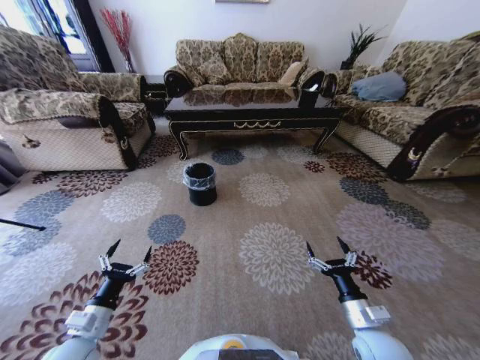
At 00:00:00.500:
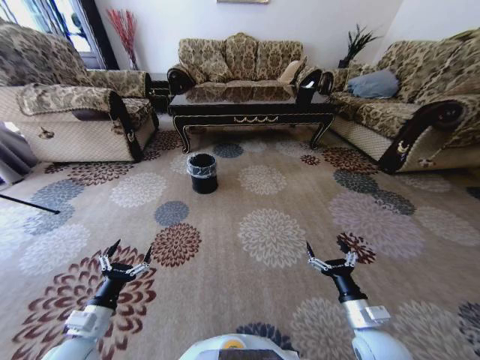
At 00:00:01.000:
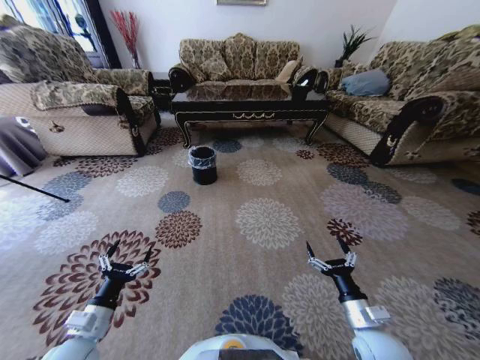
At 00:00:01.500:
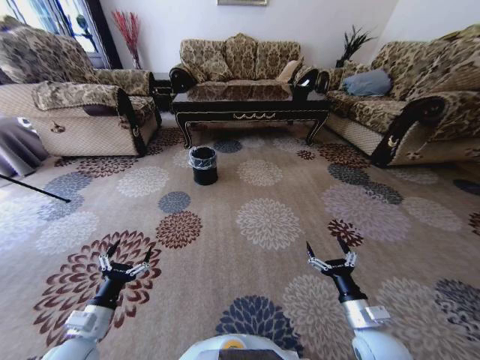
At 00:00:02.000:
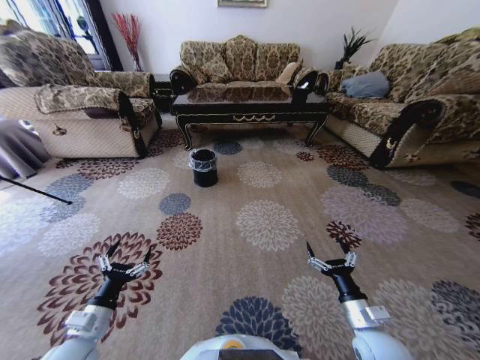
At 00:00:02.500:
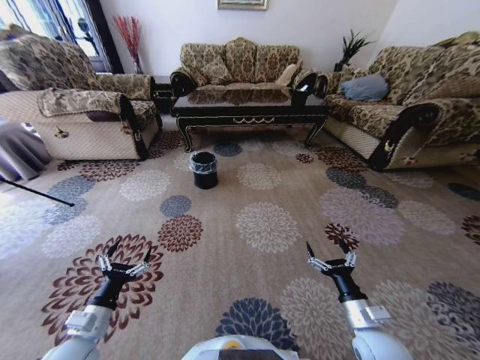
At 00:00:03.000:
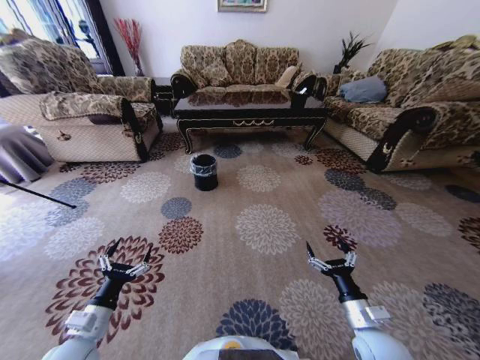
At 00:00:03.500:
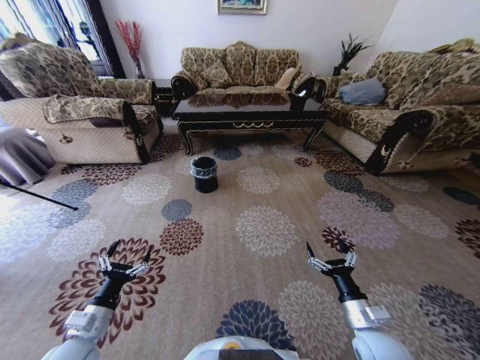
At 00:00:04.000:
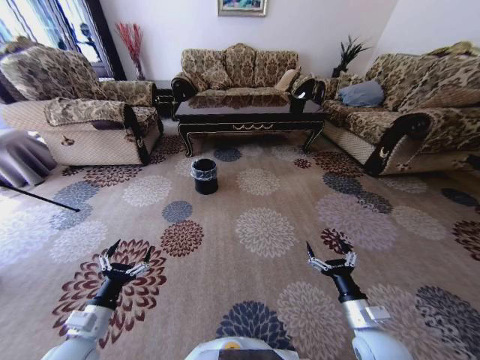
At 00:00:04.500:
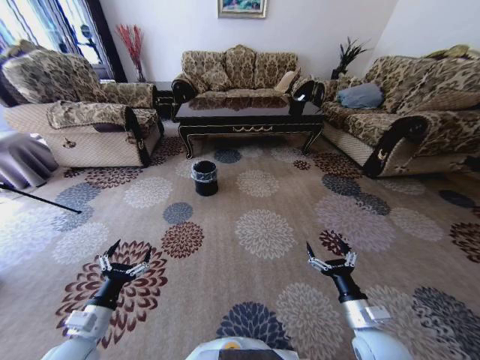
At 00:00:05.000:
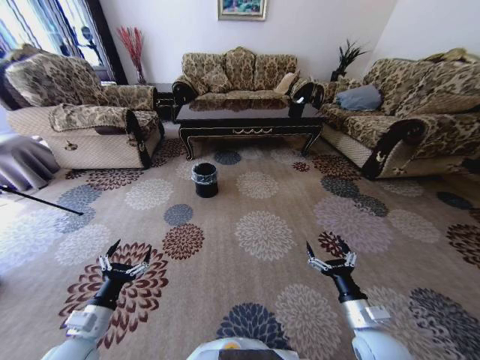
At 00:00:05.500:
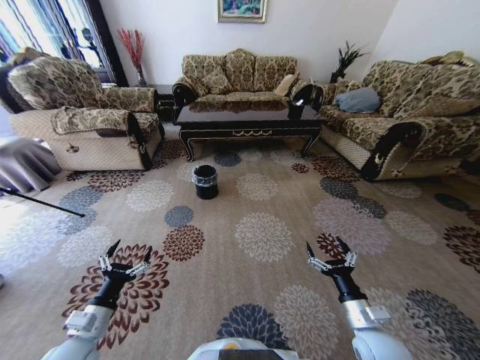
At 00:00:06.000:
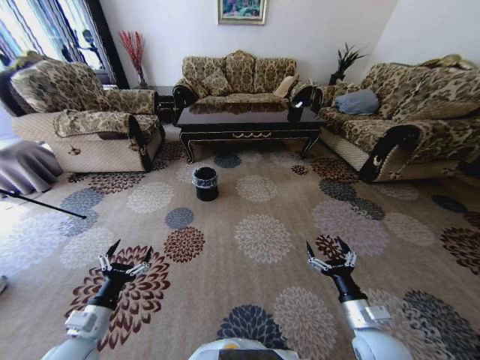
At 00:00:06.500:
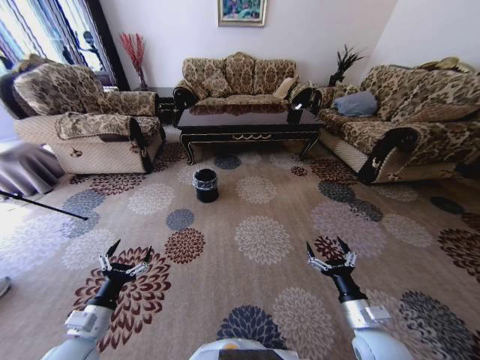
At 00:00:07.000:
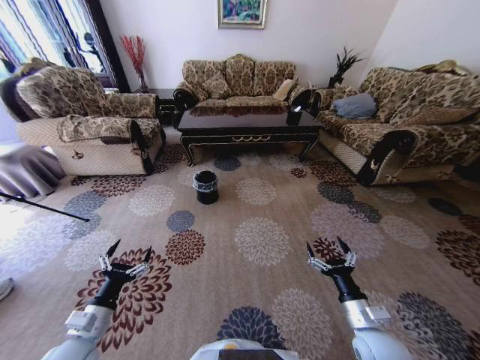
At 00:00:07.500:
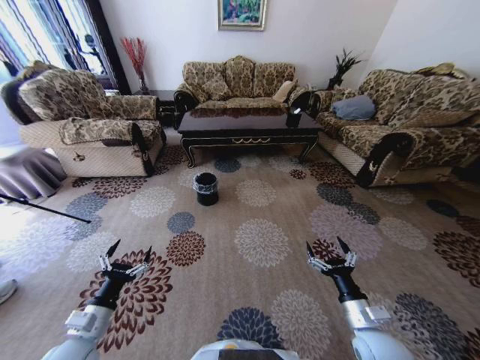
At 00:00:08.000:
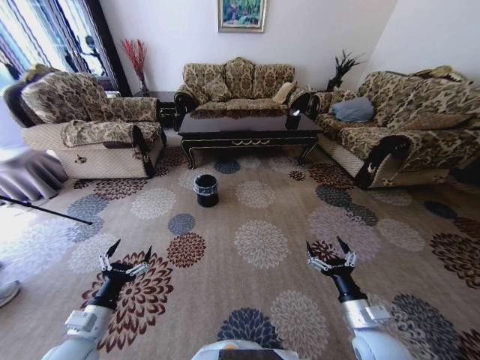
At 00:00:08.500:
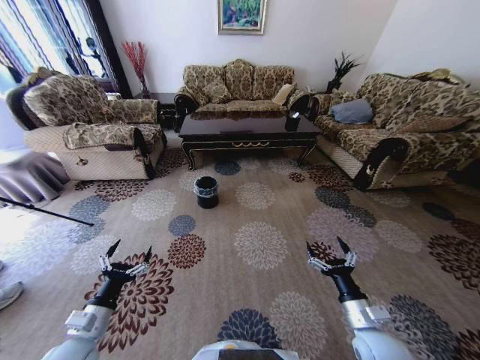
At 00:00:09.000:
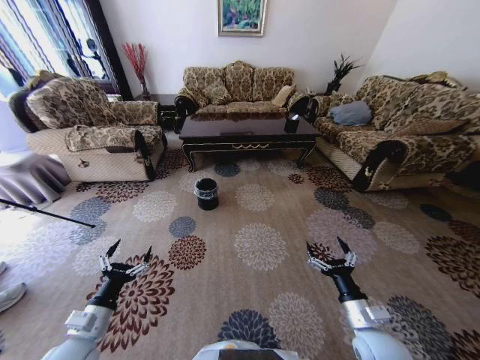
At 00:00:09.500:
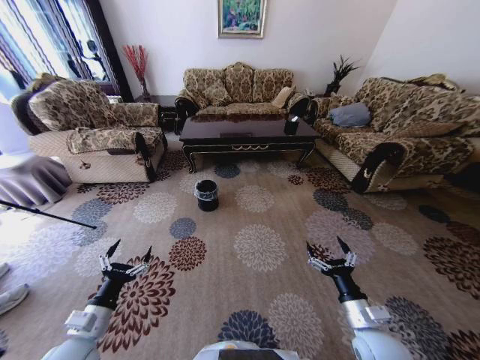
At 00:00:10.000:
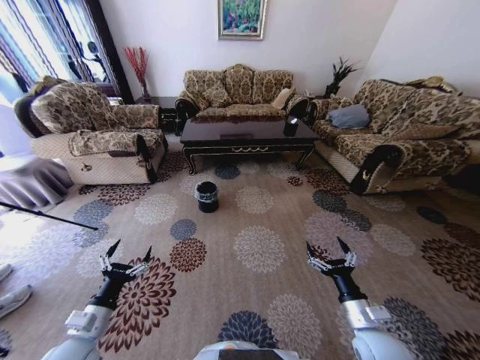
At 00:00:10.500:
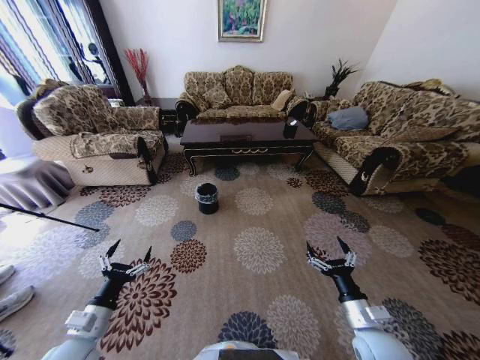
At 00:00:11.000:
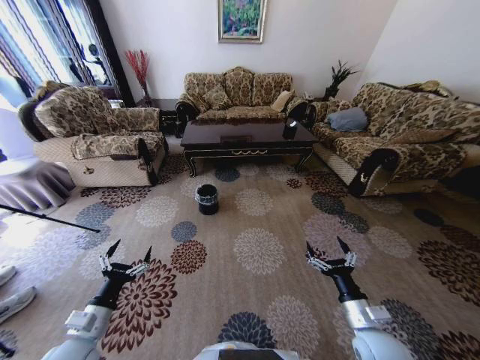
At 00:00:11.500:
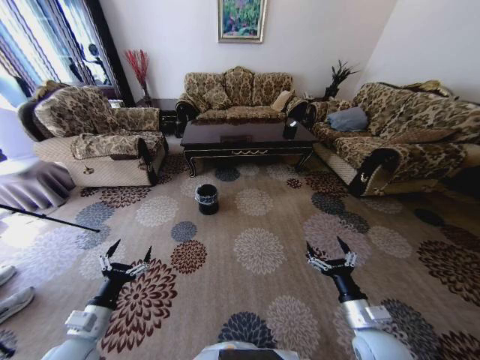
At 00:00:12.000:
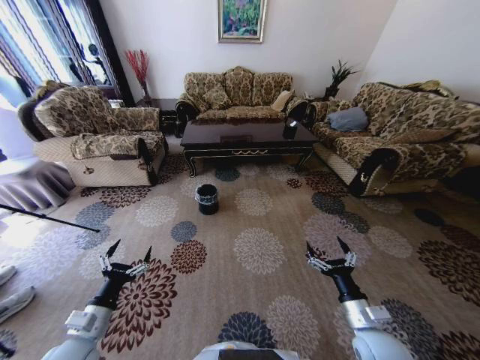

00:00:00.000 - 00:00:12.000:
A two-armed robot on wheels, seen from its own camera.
Task of the whole recording: Move to the front of the table and pick up the trash from the floor, then place it into the trash bin.
00:00:10.000 - 00:00:12.000: Both grippers stay about where they are.
